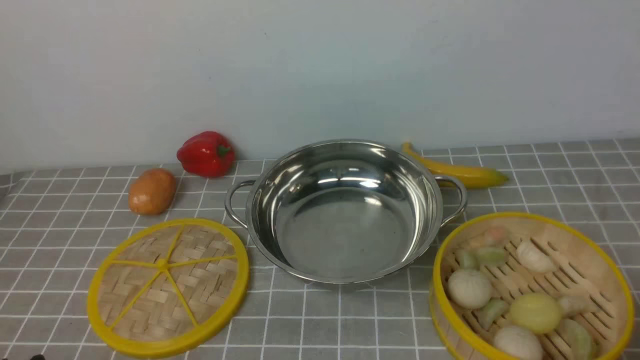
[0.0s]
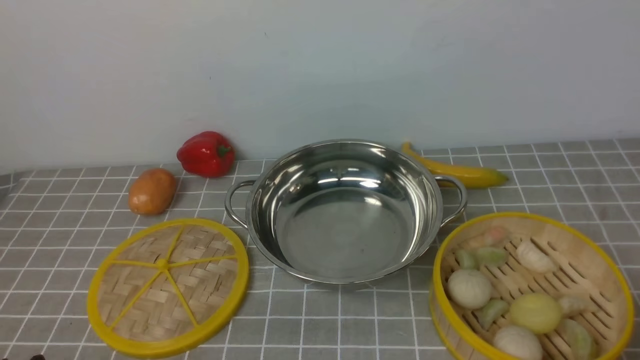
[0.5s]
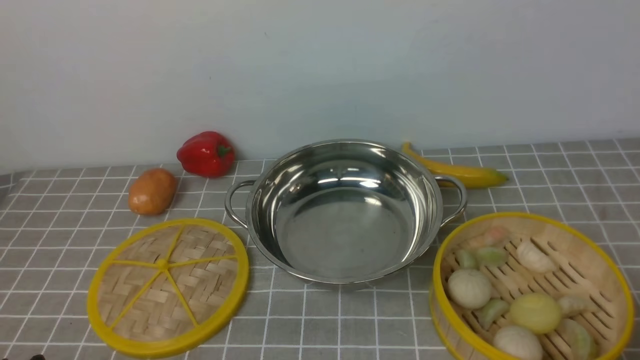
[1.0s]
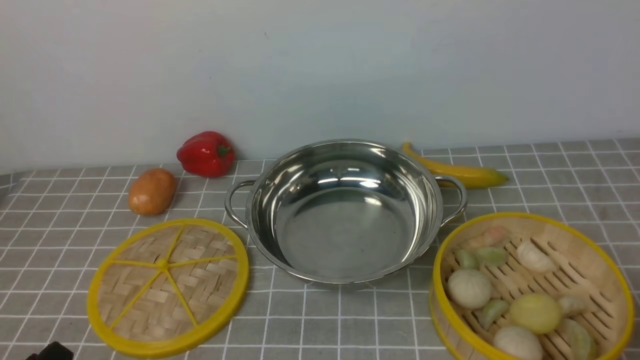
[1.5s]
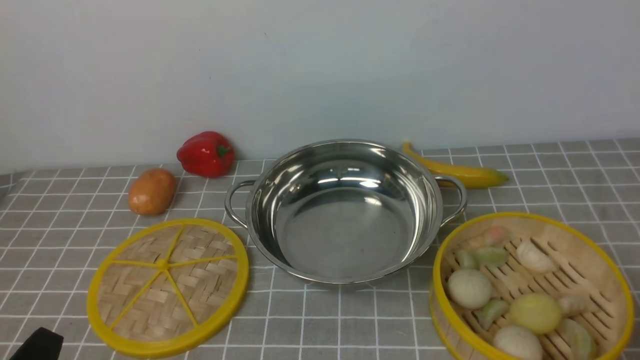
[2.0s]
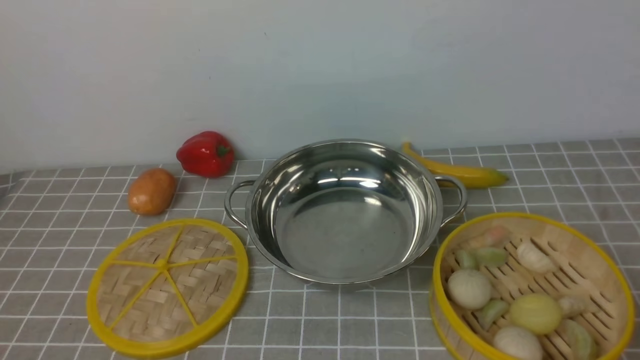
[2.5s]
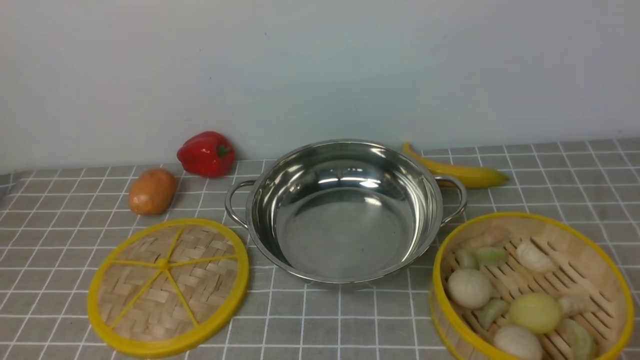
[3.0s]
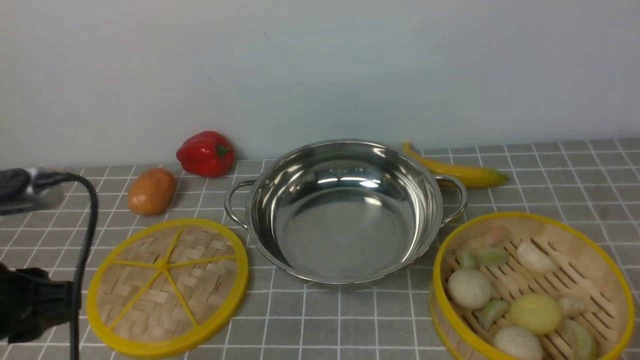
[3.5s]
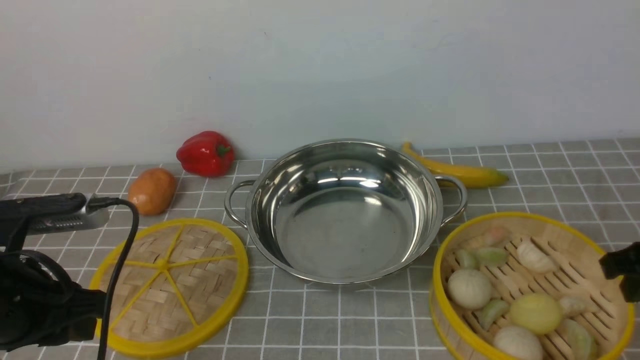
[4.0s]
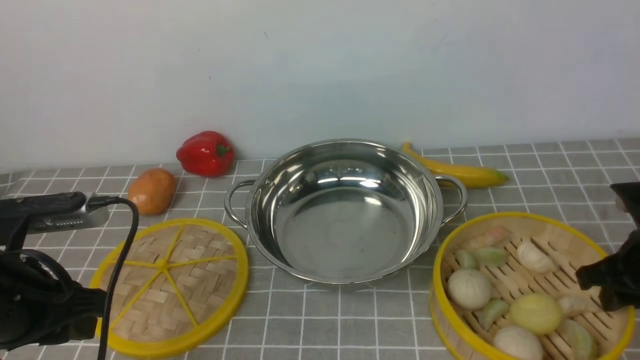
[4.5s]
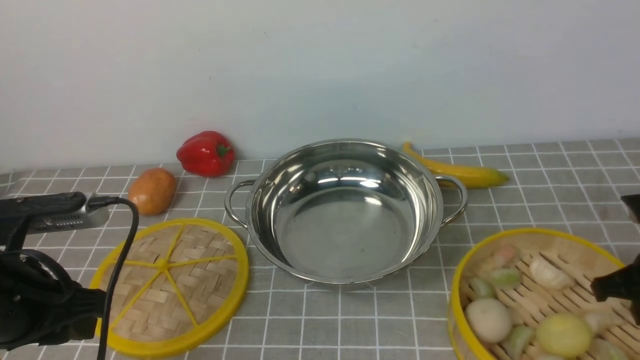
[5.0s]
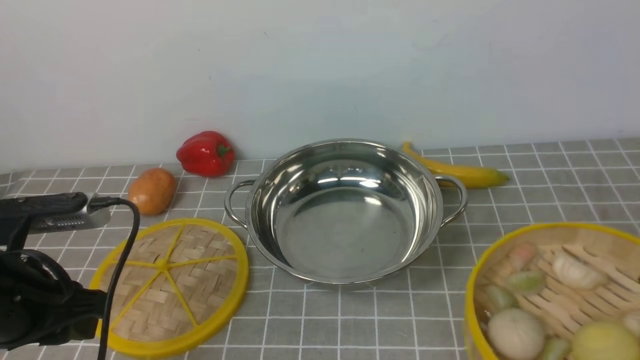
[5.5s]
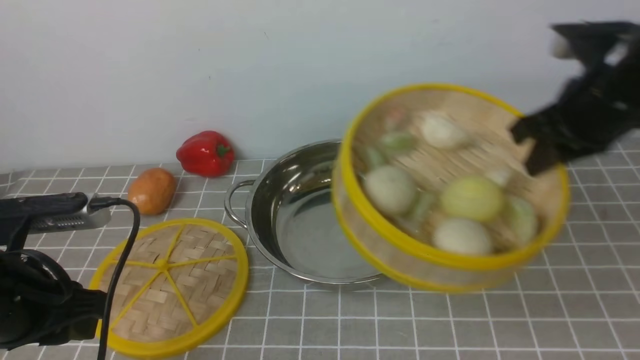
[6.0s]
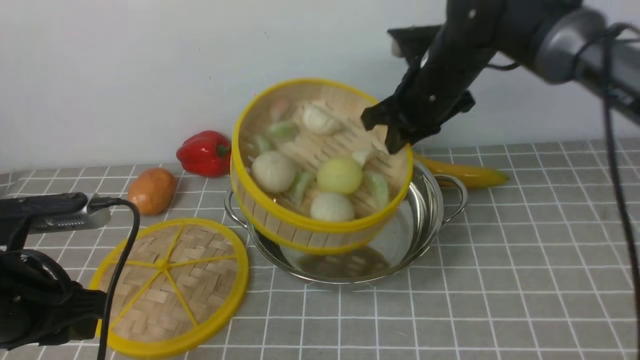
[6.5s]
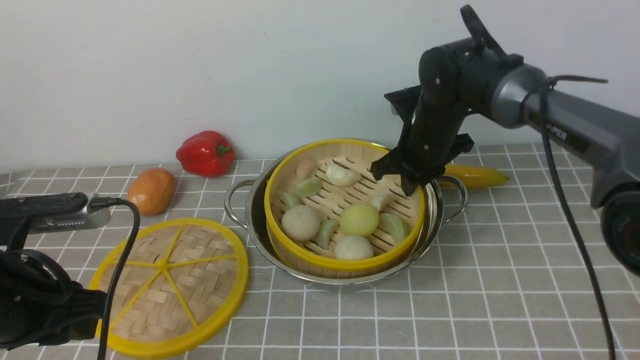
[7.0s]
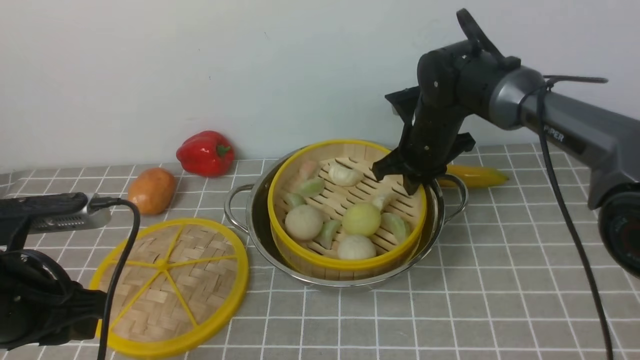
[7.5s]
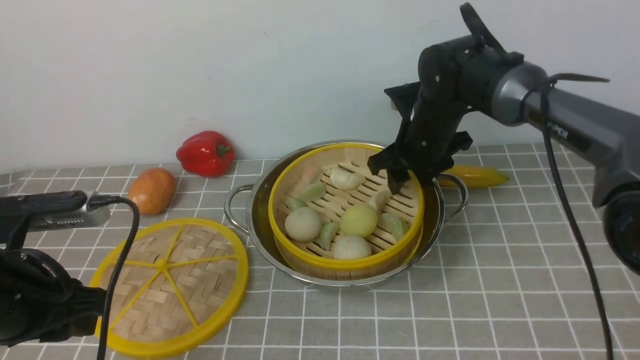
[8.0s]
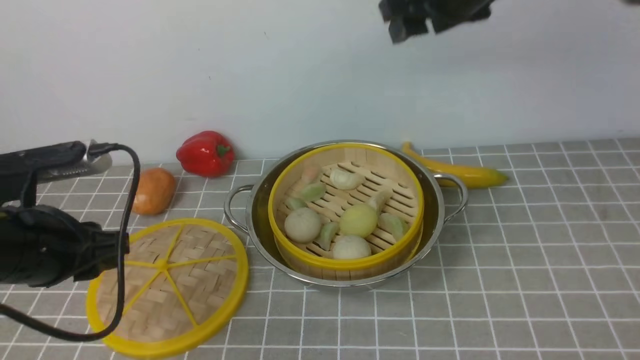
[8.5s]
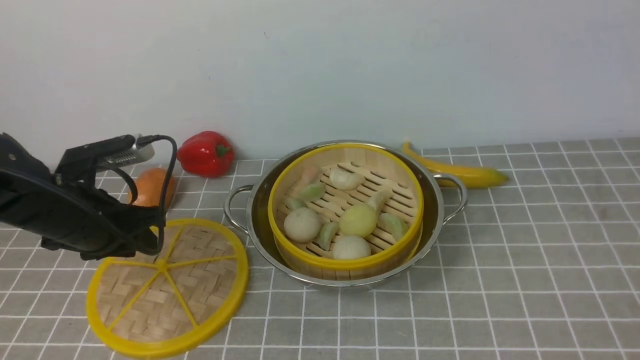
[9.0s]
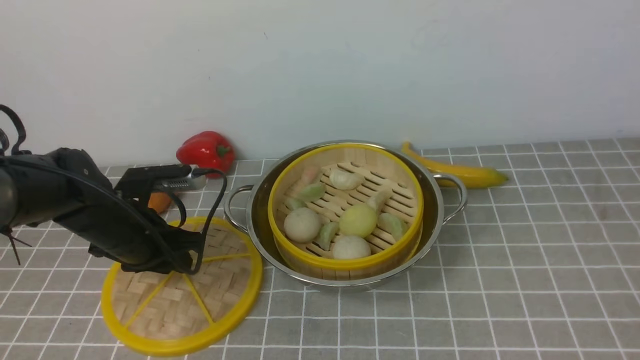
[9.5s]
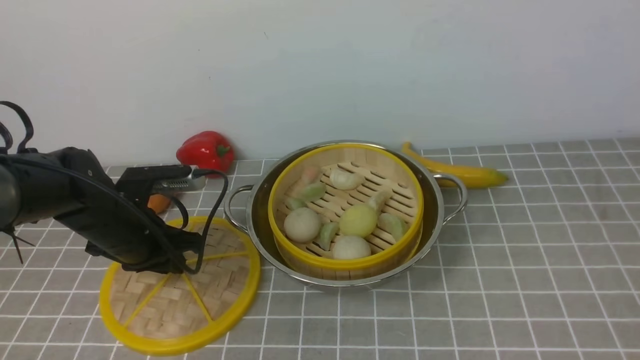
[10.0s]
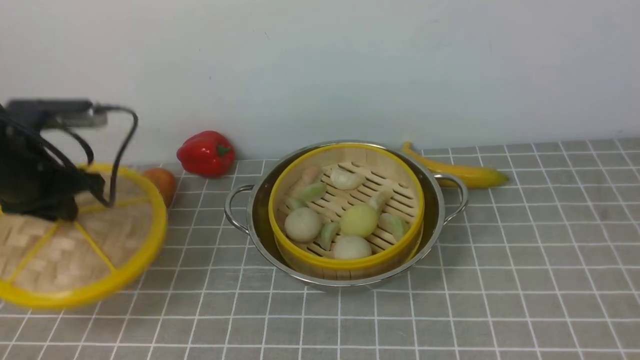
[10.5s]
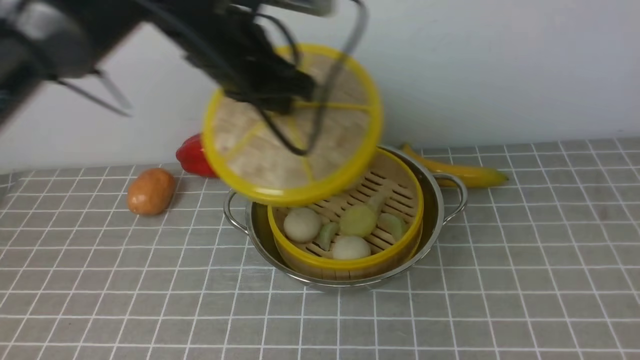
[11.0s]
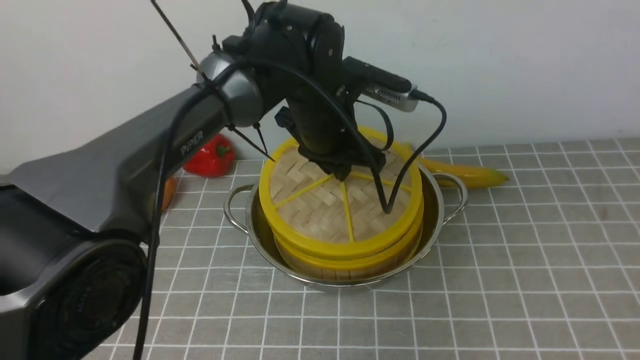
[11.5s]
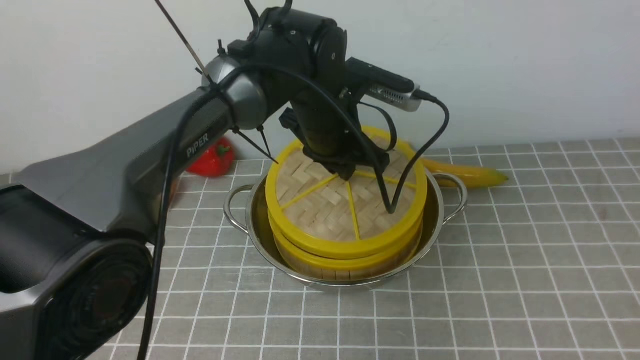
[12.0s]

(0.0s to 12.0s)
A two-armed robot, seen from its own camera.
Task of the whole recording: place the steamer in the pot on the grey tablecloth, and put the lid on the steamer.
Step, 0.0s - 5.0s: use the right arm to lift the steamer closest to it.
Step, 5.5s - 8.0s: use the right arm to put the steamer into the iron steamer pot in the middle.
Step, 8.5s - 10.0s: use the left arm to lift the lid of the steamer.
2.0s - 4.0s: The left gripper goes roughly 15 cm forward and upward. The right gripper heads forward, covering some 20 cm.
4.0s - 6.0s: The right gripper heads forward, upward and to the left, covering some 15 cm, and closes.
6.0s - 8.0s: The right gripper shifts roughly 20 cm to the left, forward and downward, and opens.
8.0s - 10.0s: The left gripper travels forward and downward by about 15 cm; the right gripper is displaced backward, upward and to the right by about 60 cm.
10.0s - 12.0s: The left gripper heads to the right, covering some 25 cm.

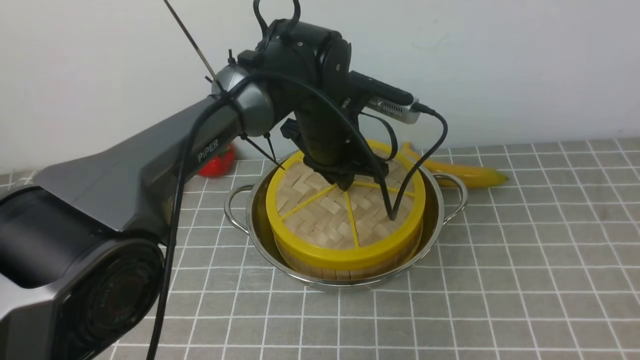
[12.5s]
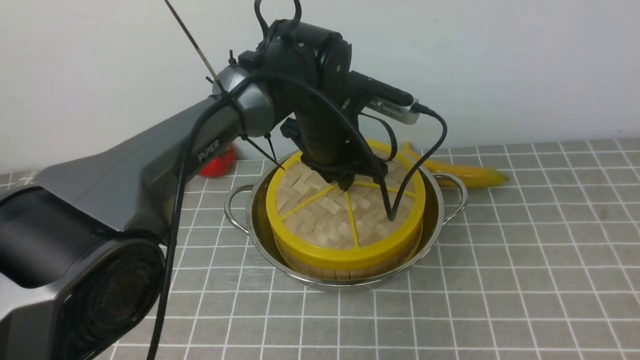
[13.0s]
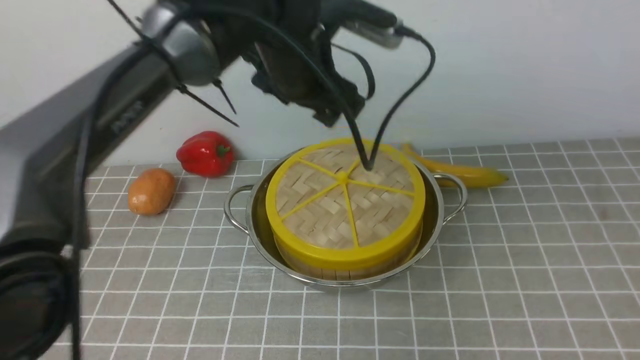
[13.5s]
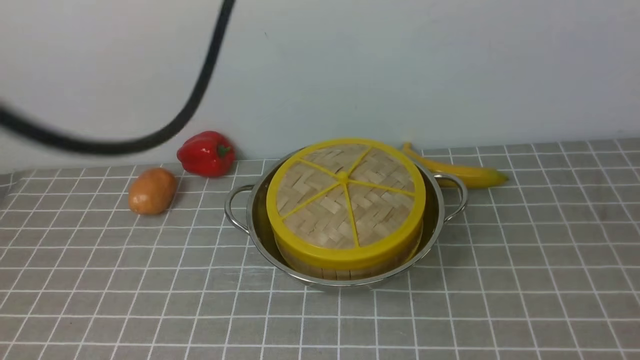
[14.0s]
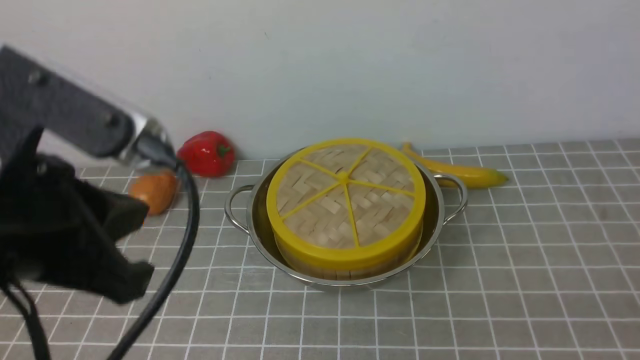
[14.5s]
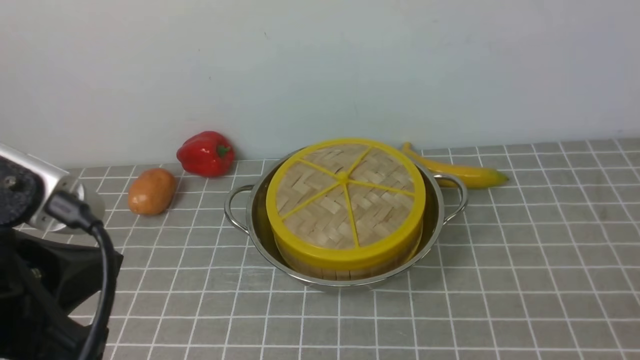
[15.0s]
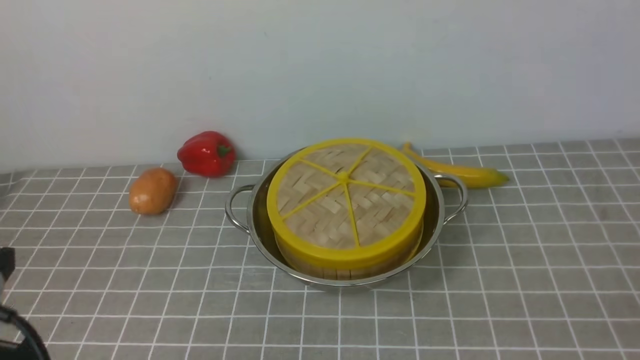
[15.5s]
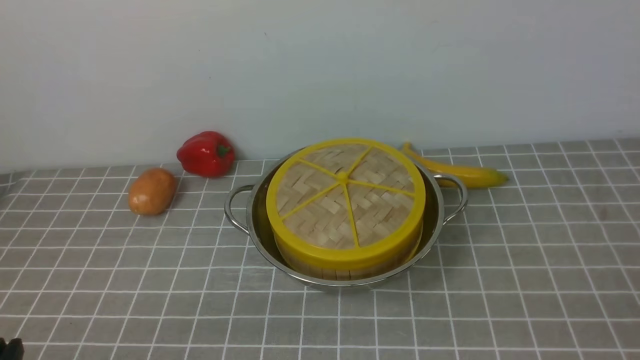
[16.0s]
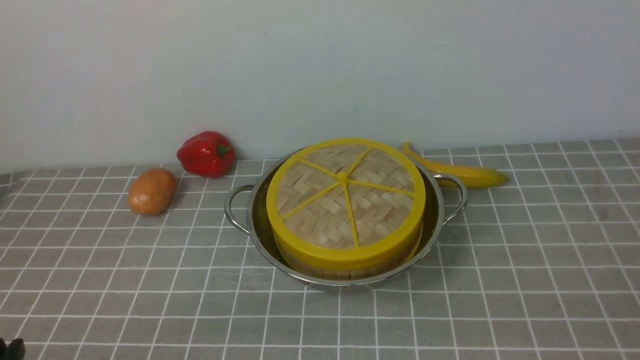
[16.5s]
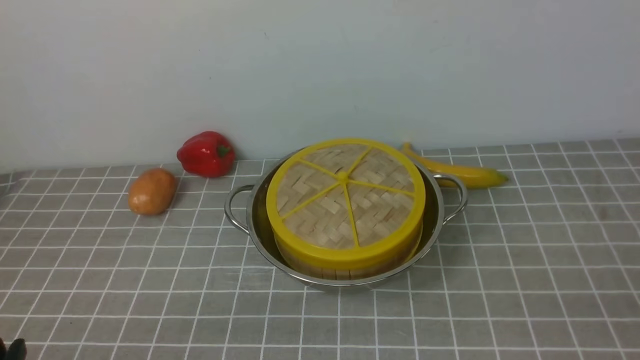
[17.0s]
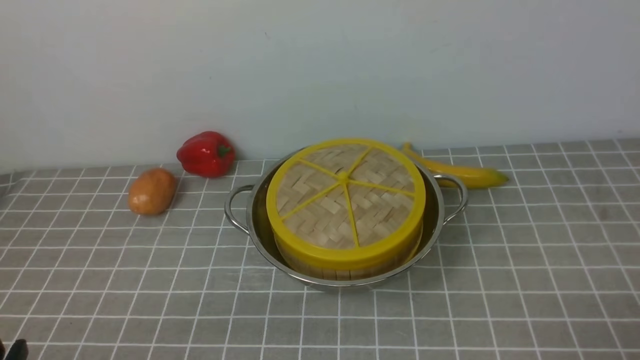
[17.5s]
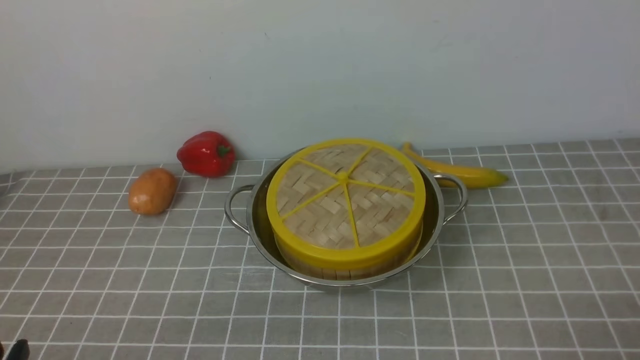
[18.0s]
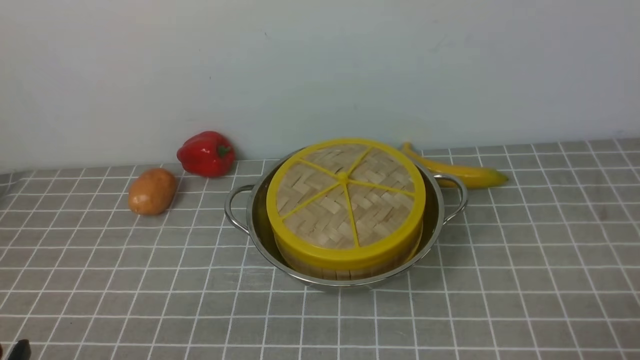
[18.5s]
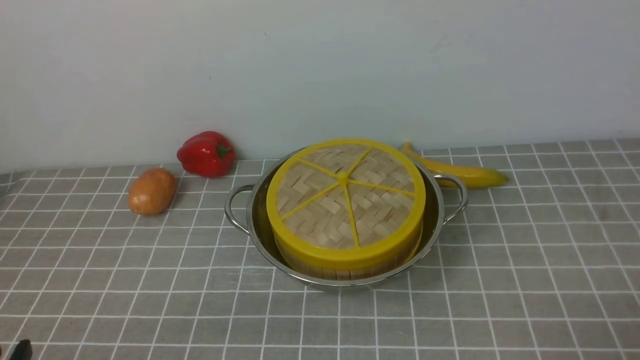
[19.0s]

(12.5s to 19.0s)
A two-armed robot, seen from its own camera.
Task of the whole recording: place the steamer in the pot on the grey tablecloth, and put the lid on the steamer.
12.5s - 14.5s: The left gripper travels backward, to the left and upward by about 35 cm, and closes up, while the right gripper goes some 25 cm downward, and closes up.
14.5s - 17.0s: The left gripper moves downward, backward and to the left, roughly 25 cm.
